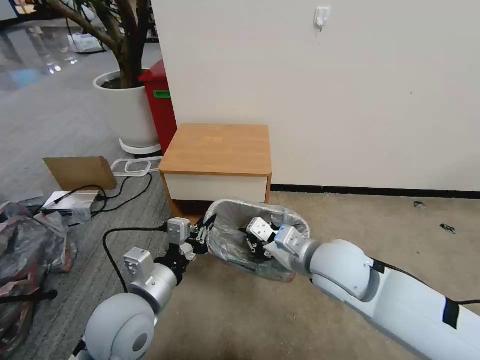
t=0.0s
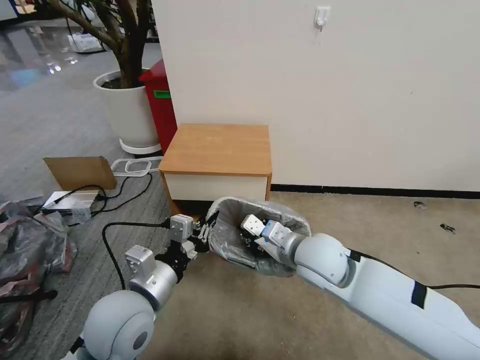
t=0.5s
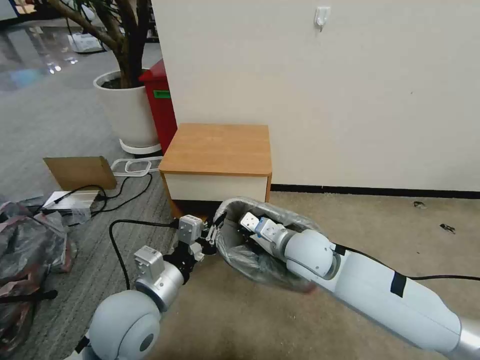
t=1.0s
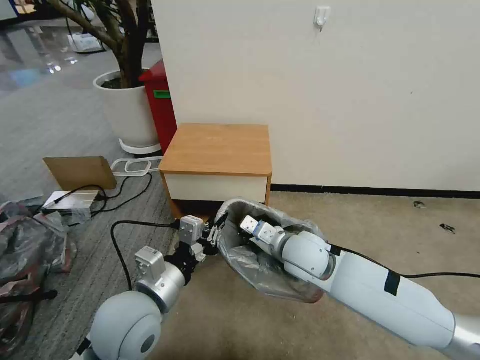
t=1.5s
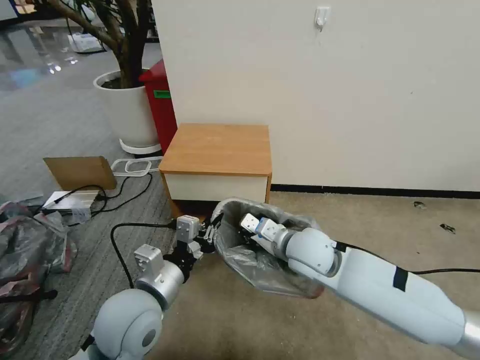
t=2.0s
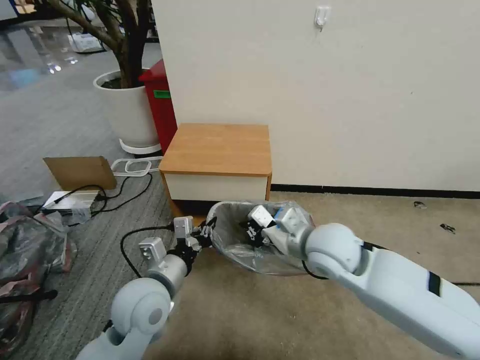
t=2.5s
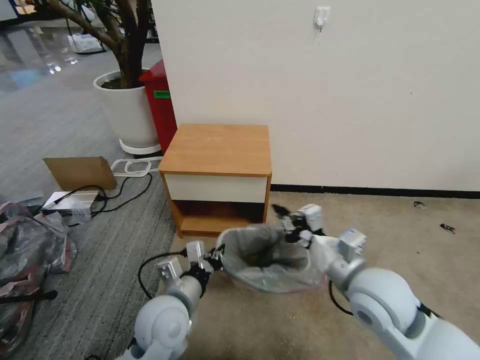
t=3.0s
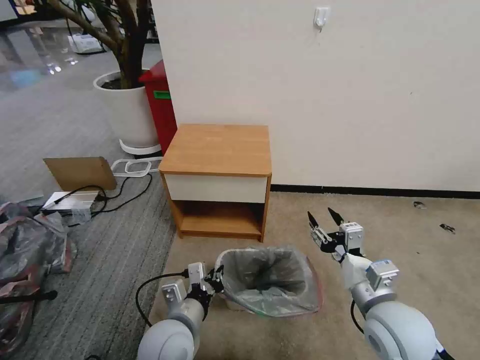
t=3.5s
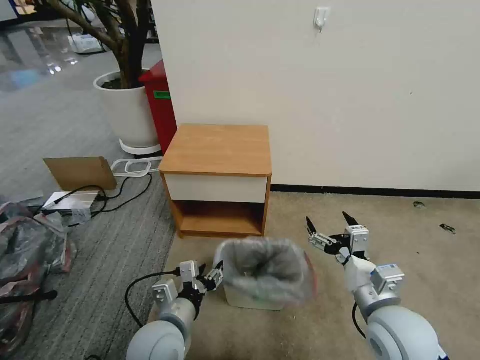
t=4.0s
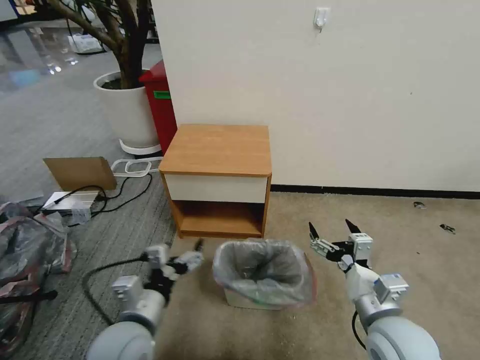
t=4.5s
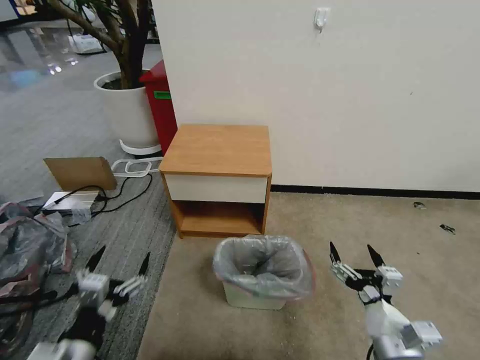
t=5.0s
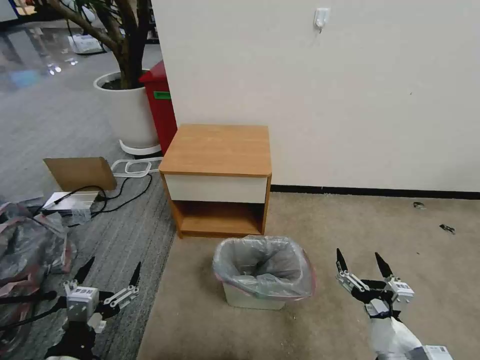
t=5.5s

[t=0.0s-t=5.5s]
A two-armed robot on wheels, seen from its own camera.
Task of the whole recording: Pick up the garbage bag from the table and place it over the trash can.
t=0.0s to t=2.0s: The right gripper heads forward, covering some 5 cm.
t=2.0s to t=3.5s: The right gripper goes some 20 cm backward and to the right, and opens its fingers. The left gripper moves downward, some 10 cm.
t=3.5s to t=5.5s: The left gripper shifts approximately 20 cm to the left and backward, and opens, while the right gripper moves backward and downward, some 10 cm, and opens its fingers.
